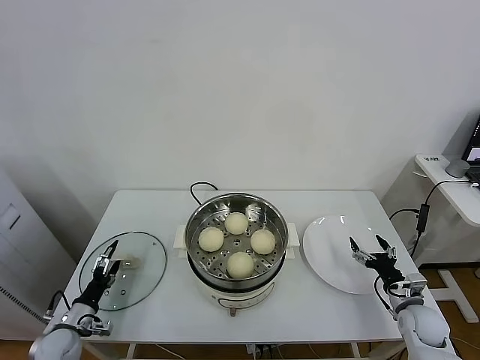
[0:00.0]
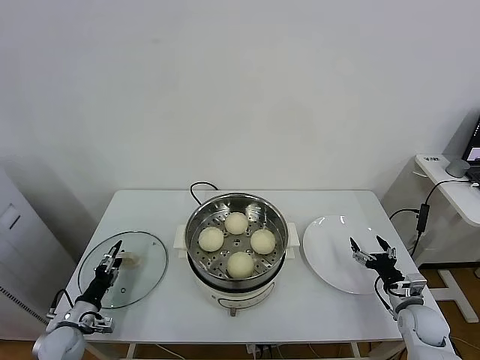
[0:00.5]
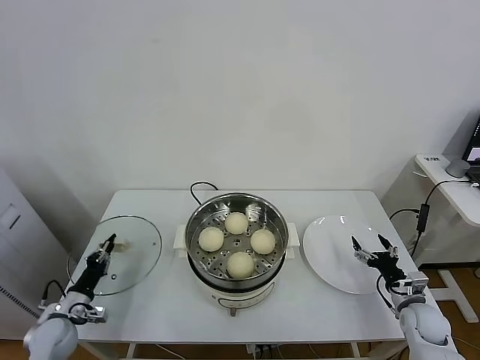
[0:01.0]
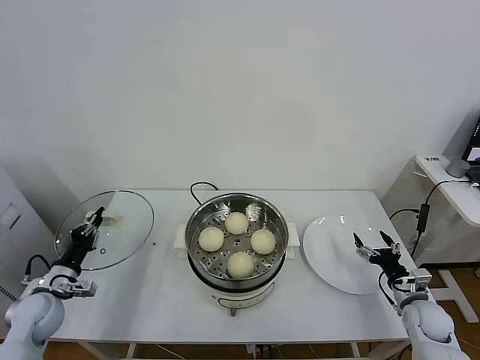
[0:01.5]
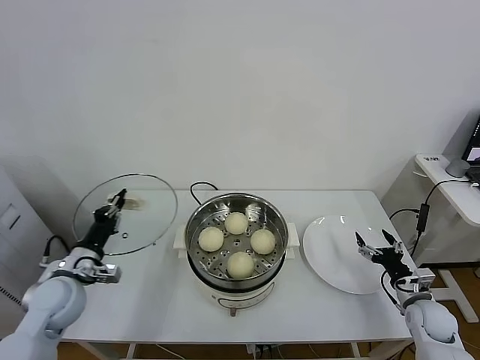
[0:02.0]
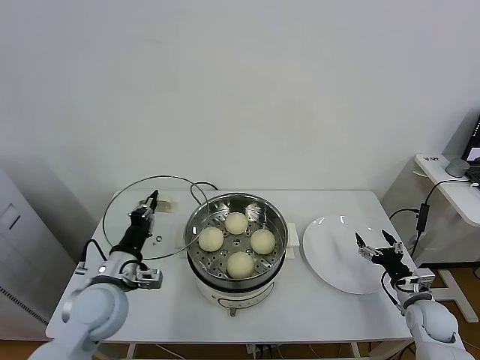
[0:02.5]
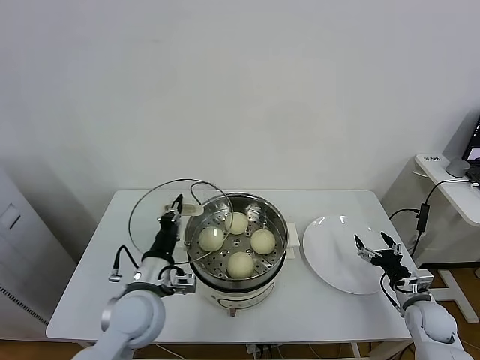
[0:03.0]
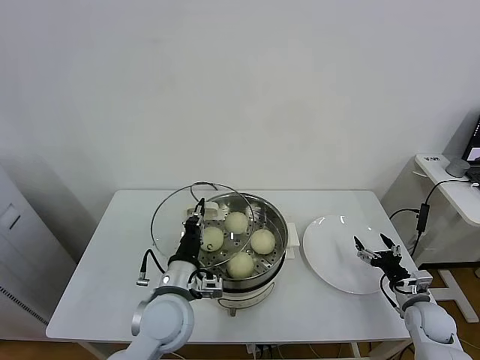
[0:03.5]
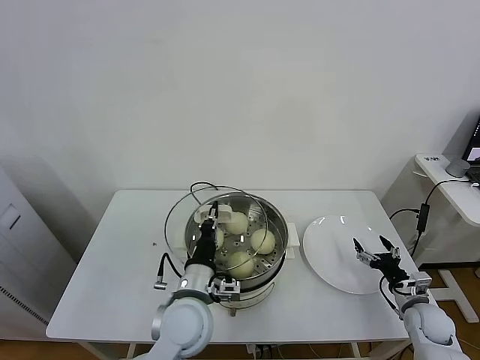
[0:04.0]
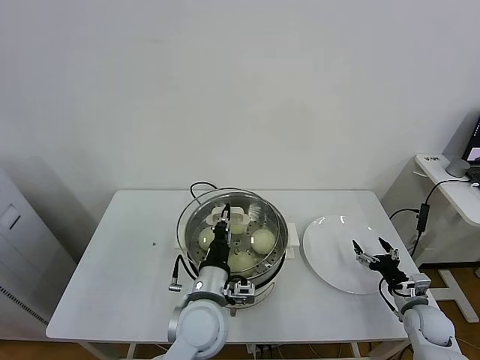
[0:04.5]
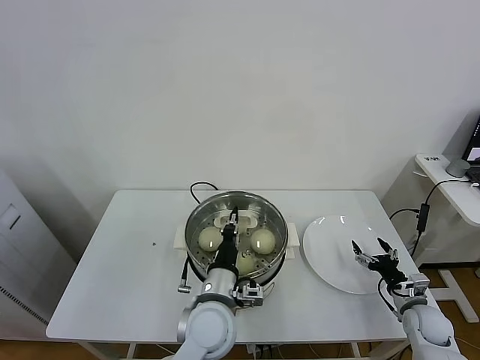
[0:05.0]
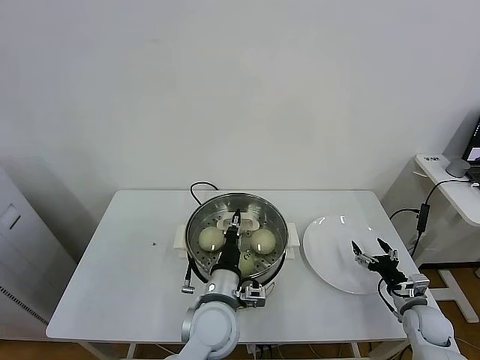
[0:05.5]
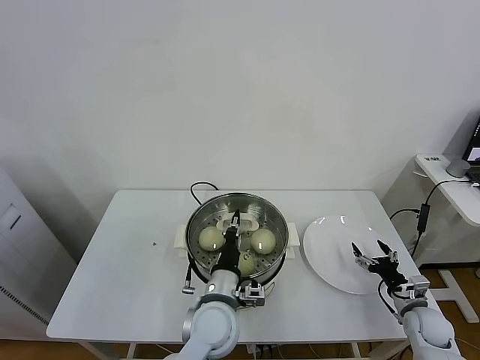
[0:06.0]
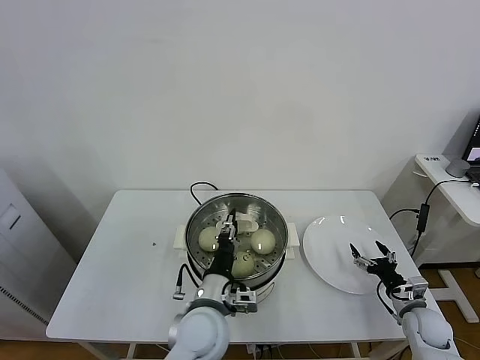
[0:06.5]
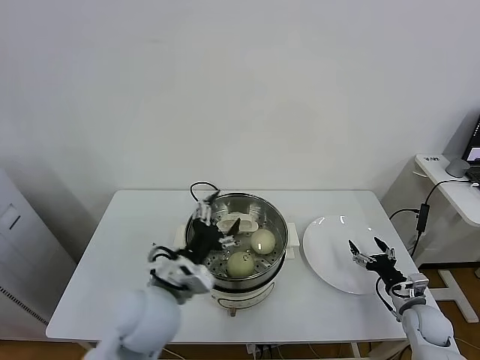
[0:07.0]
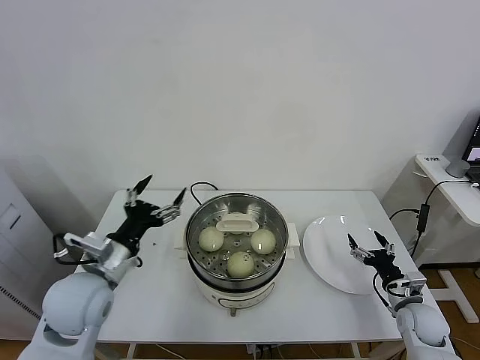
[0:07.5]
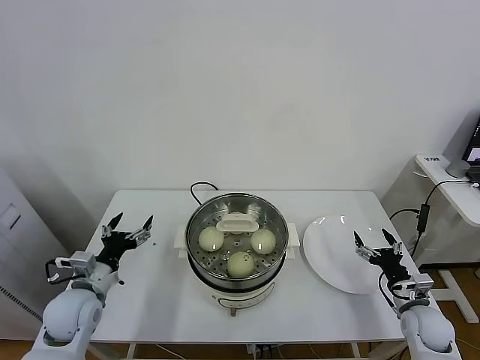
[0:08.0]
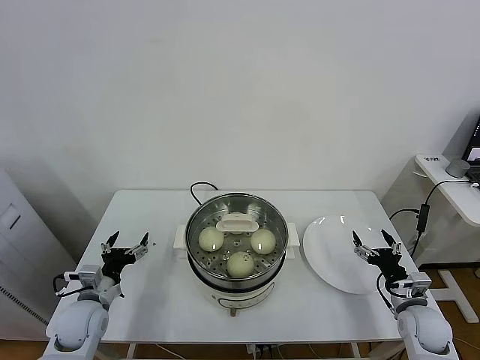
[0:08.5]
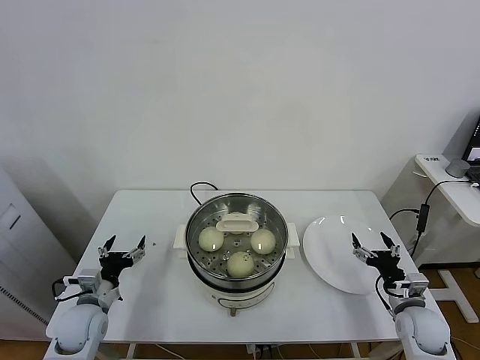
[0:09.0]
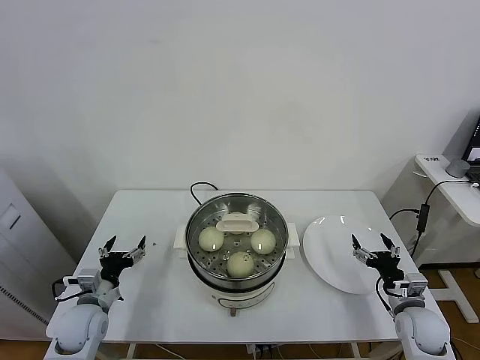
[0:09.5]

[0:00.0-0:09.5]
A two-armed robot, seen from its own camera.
Task of the whole recording: take steamed baozi put them in steamer.
Step, 0:01.5 to 0:06.5: Place the pot lid on the steamer with left gripper.
0:00.0 to 0:02.0: The left gripper goes some 20 cm upward, and closes.
0:02.0 to 0:04.0: The left gripper moves to the right, about 25 cm.
0:04.0 to 0:05.5: The left gripper shifts about 5 cm to the right.
0:05.5 to 0:07.5: The left gripper goes about 25 cm to the left and upward, and opens.
0:07.5 to 0:09.5: The left gripper travels downward and to the left by about 20 cm.
